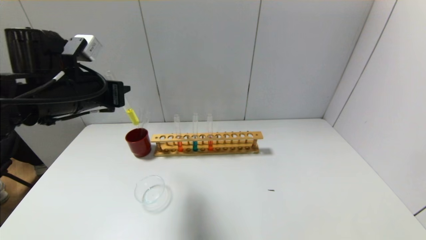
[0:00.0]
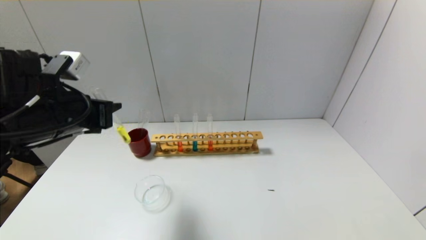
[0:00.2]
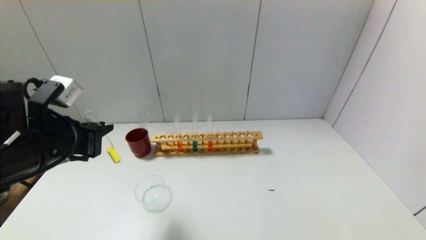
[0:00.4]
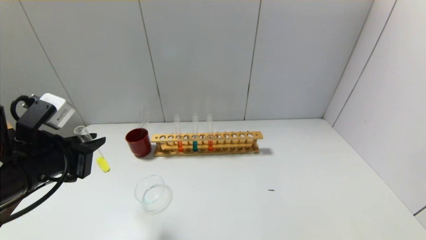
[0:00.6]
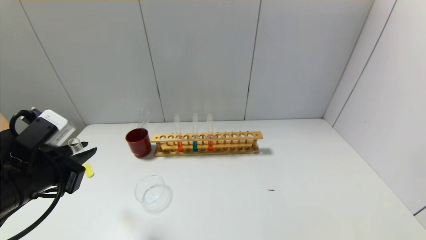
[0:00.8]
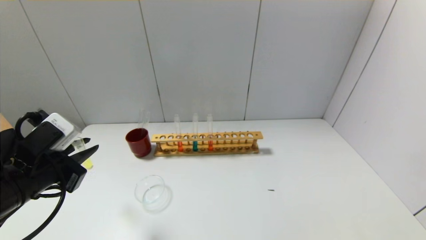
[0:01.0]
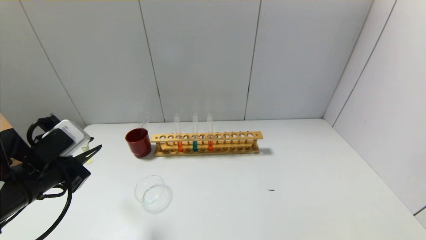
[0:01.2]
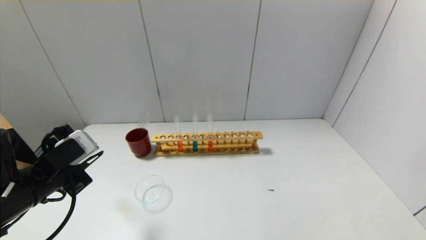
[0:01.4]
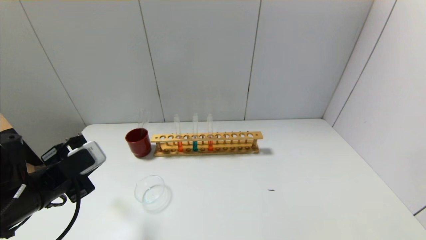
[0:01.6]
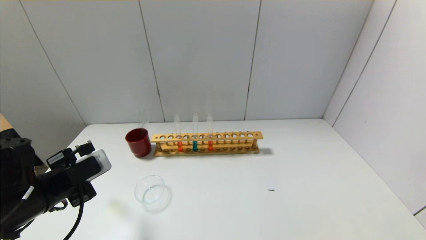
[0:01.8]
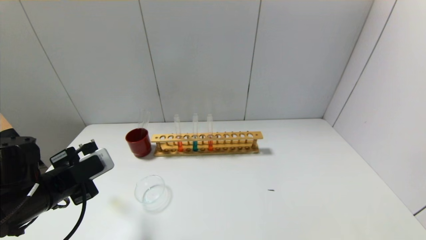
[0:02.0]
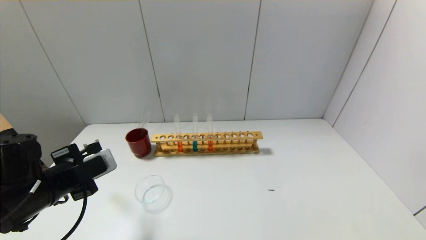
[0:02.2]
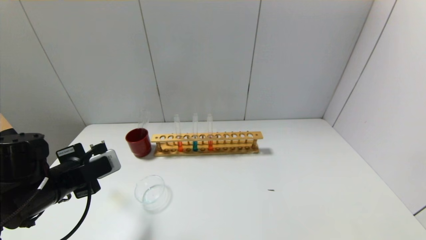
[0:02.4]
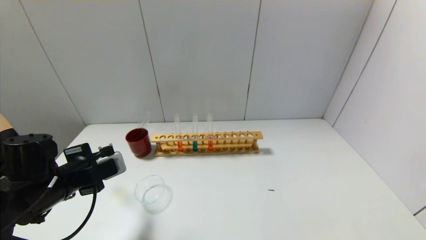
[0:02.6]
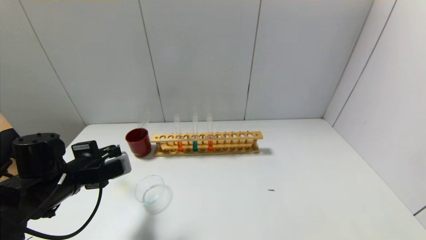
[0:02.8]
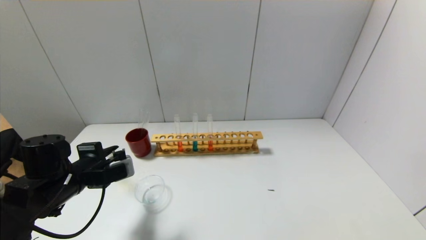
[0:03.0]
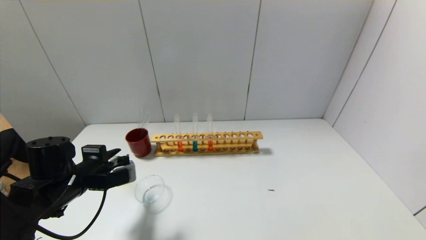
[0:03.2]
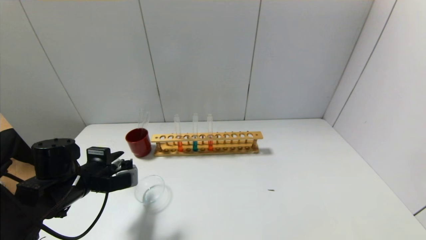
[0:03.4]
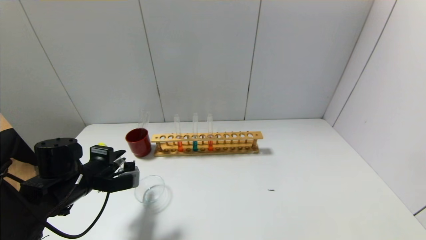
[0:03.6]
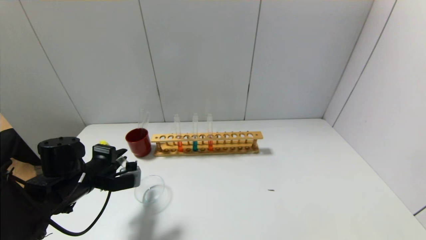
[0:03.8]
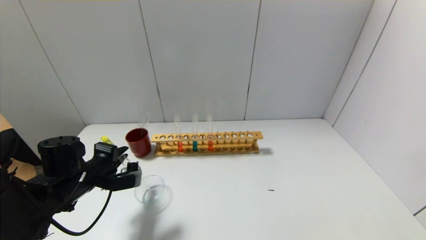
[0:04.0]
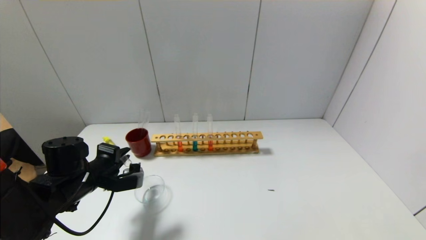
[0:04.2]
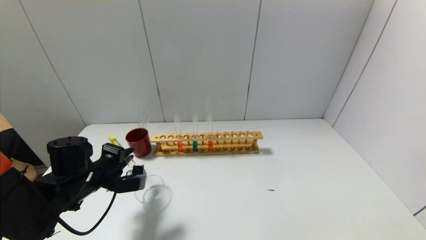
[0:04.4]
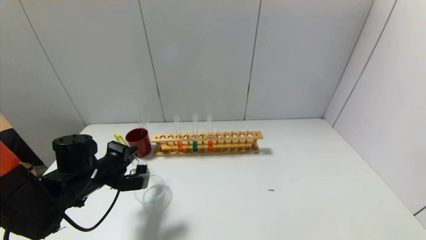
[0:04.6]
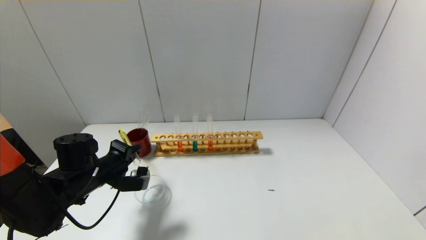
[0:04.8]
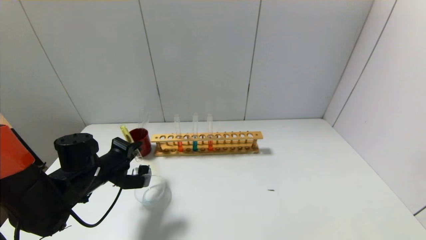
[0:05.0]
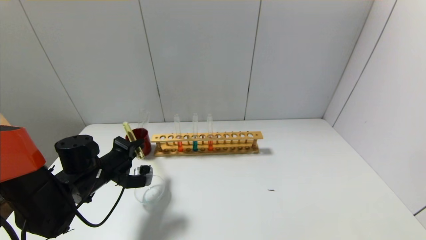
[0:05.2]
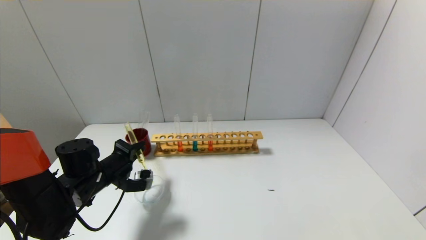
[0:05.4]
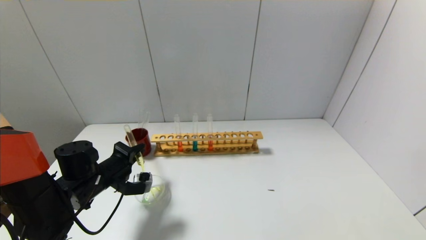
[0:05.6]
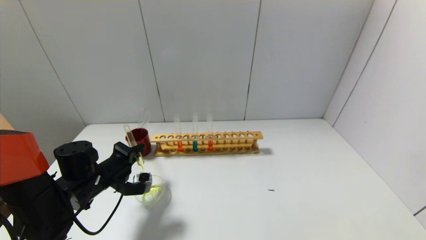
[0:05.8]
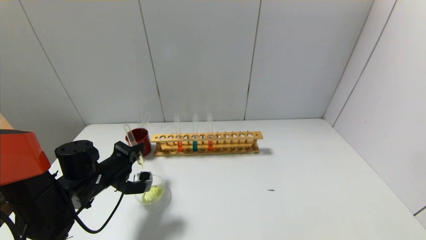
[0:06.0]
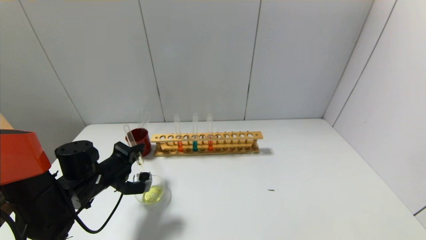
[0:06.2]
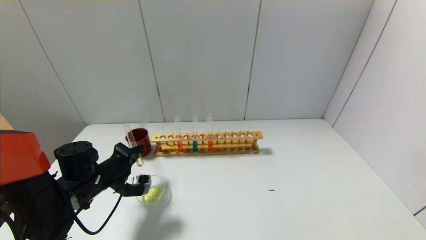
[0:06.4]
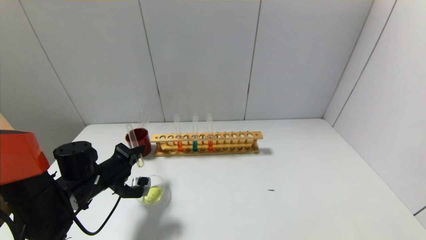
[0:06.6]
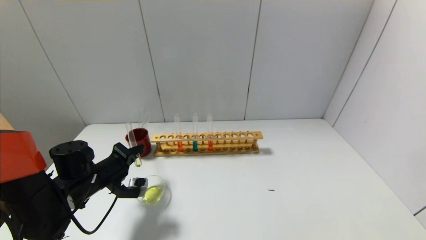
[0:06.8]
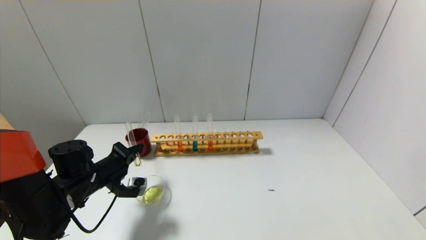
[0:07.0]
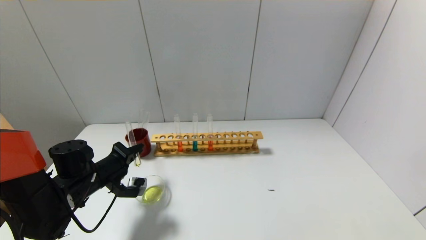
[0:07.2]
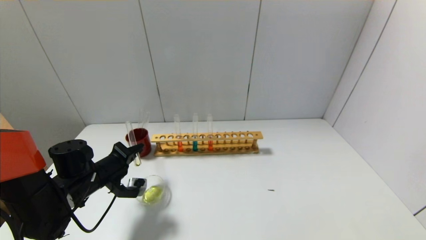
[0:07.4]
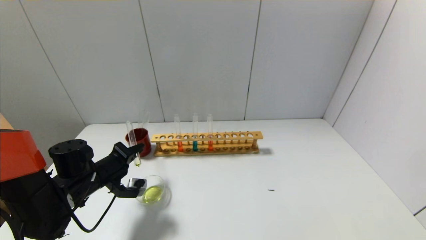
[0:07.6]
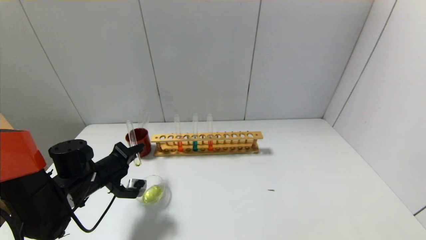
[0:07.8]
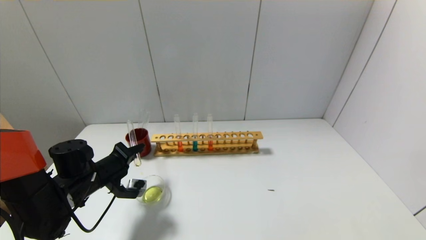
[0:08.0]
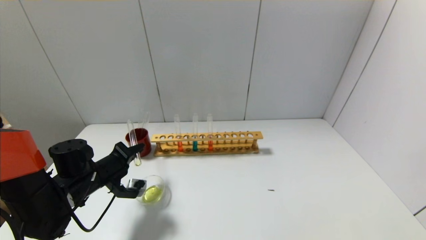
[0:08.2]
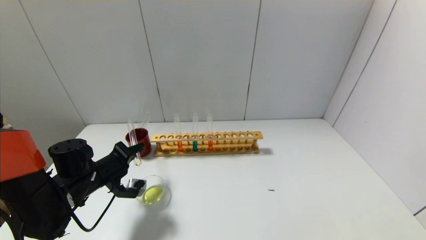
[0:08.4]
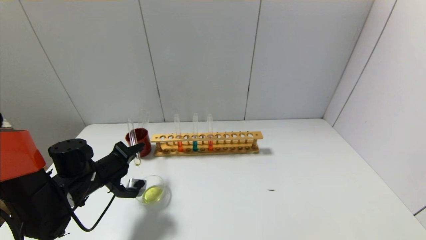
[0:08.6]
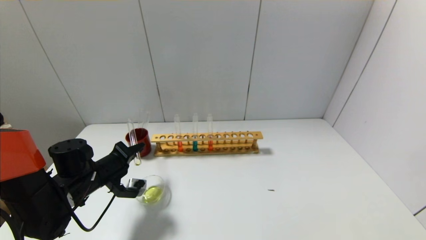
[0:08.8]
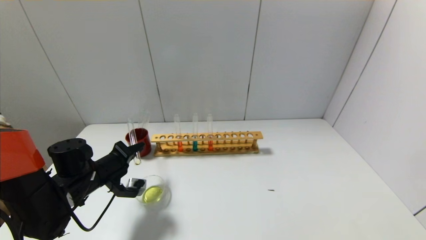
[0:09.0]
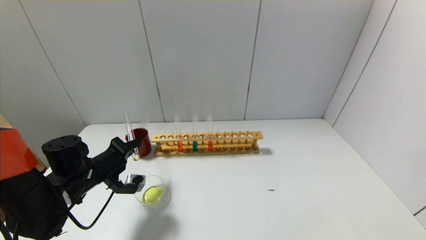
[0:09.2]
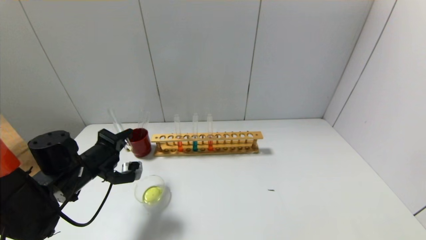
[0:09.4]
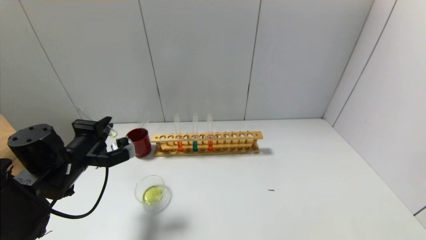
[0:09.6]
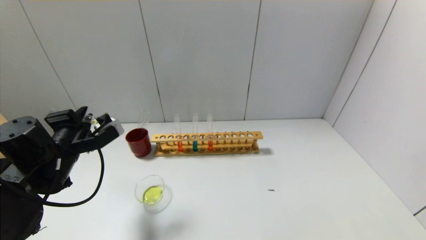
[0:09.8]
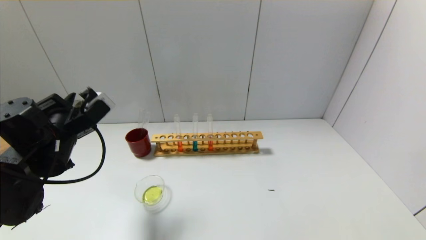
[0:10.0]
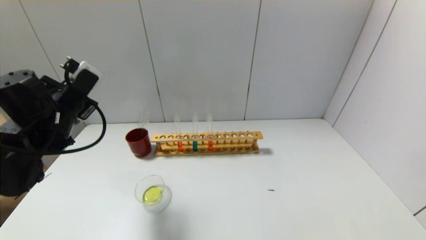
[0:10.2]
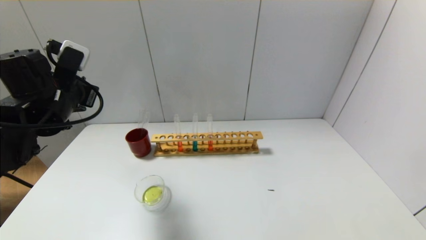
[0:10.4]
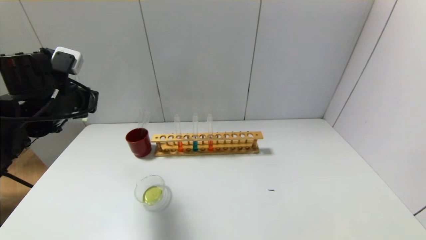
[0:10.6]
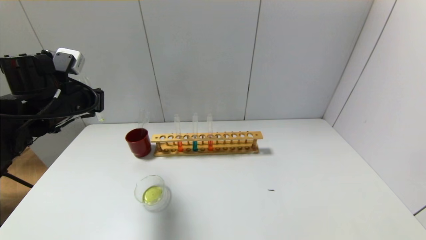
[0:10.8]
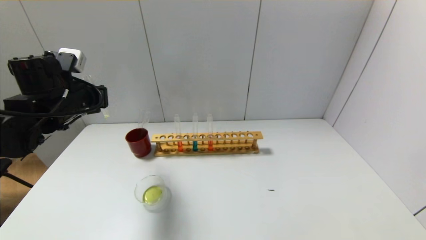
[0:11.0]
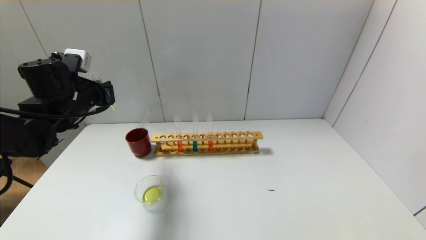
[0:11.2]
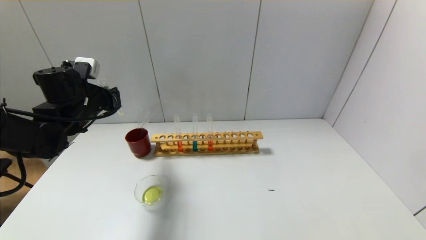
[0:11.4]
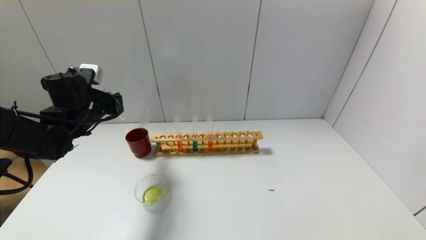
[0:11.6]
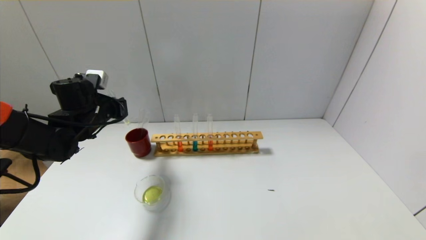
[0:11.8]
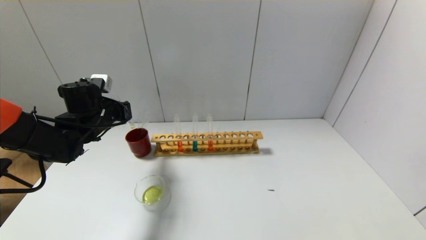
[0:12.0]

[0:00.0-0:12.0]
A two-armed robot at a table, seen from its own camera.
Step, 0:00.0 to 0:09.4: Pour the yellow reagent into the graduated cylinder with the left gripper.
0:00.0 to 0:01.6: The left gripper heads downward and backward, covering roughly 15 cm.
0:01.6 to 0:03.0: The left gripper is displaced forward by approximately 5 cm.
0:03.0 to 0:04.4: There are only small adjustments of the grippers.
0:04.4 to 0:06.0: The grippers make only small movements.
0:06.0 to 0:07.6: There are only small adjustments of the grippers.
0:07.6 to 0:09.0: Neither gripper changes place.
0:09.0 to 0:10.4: The left gripper heads upward, covering approximately 15 cm.
0:10.4 to 0:12.0: The left gripper goes roughly 10 cm downward and forward.

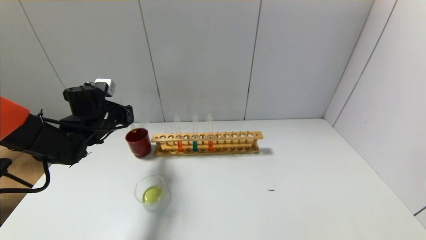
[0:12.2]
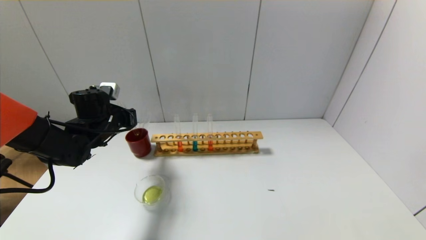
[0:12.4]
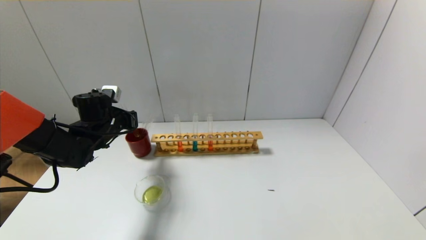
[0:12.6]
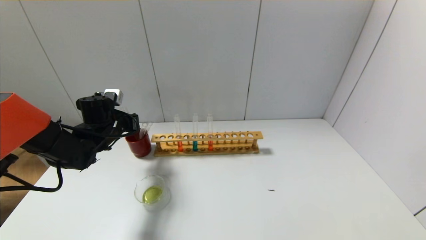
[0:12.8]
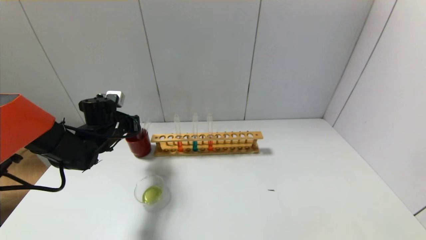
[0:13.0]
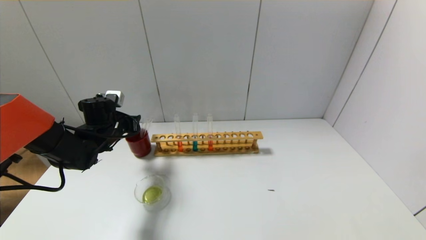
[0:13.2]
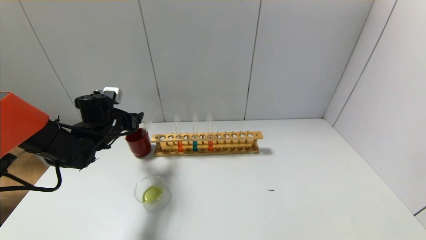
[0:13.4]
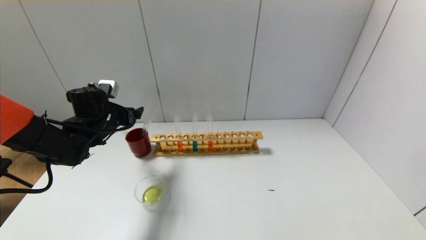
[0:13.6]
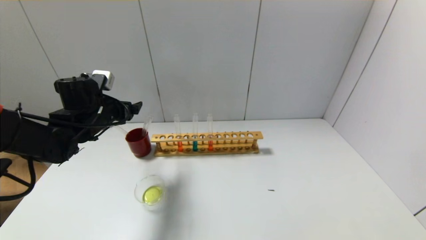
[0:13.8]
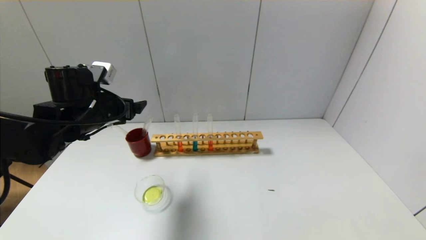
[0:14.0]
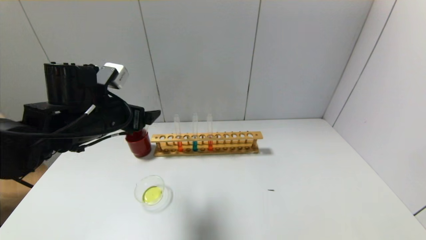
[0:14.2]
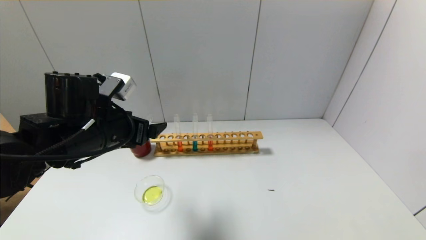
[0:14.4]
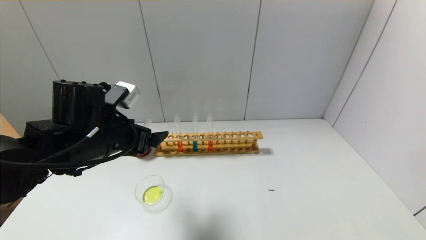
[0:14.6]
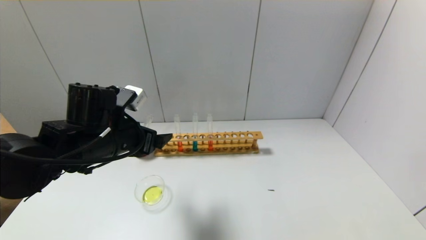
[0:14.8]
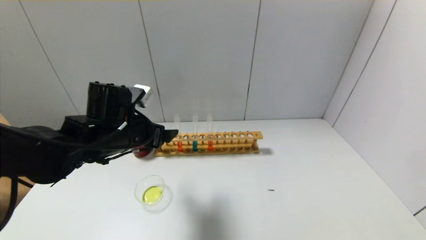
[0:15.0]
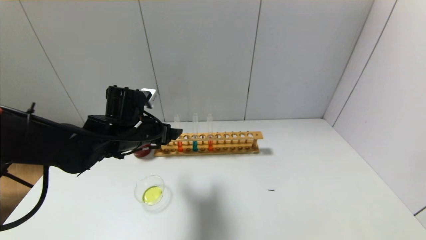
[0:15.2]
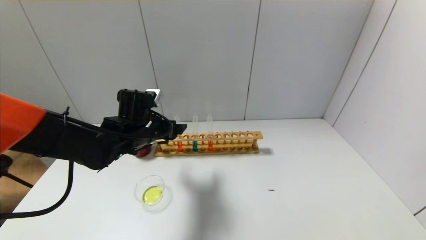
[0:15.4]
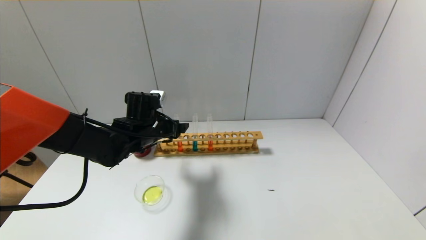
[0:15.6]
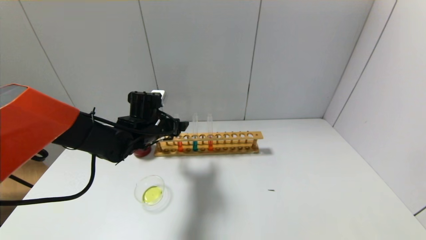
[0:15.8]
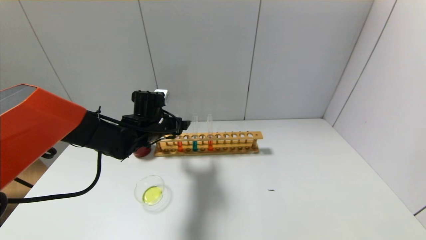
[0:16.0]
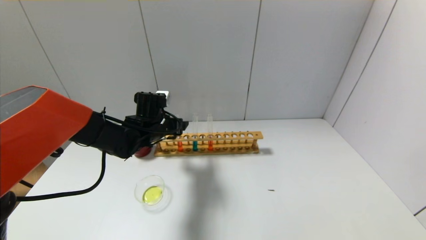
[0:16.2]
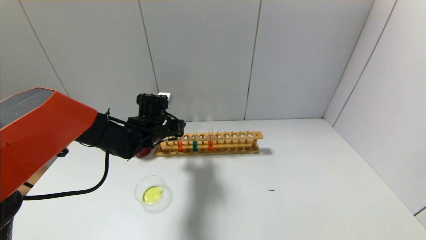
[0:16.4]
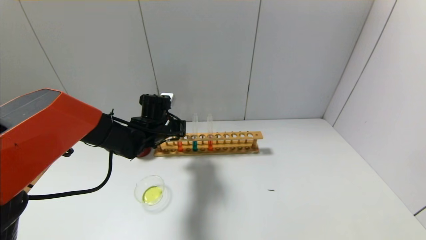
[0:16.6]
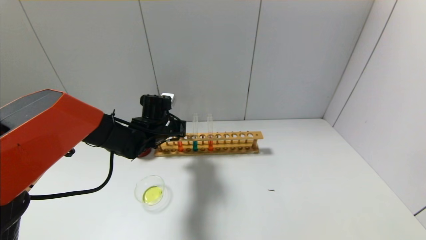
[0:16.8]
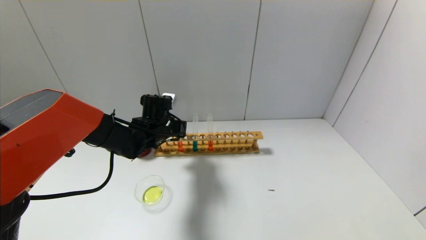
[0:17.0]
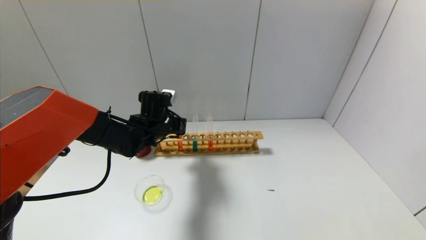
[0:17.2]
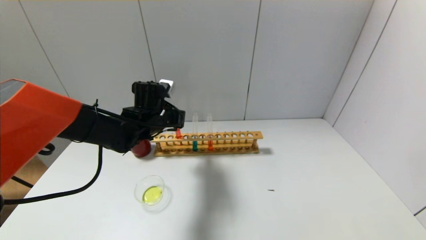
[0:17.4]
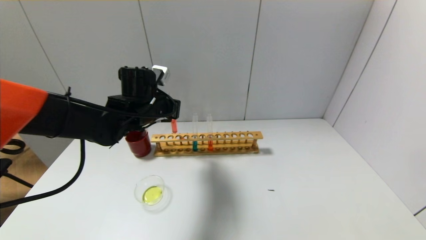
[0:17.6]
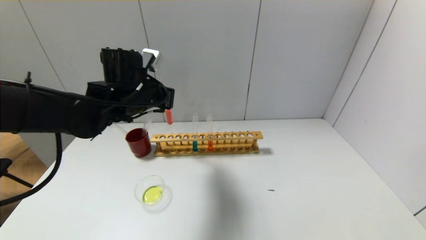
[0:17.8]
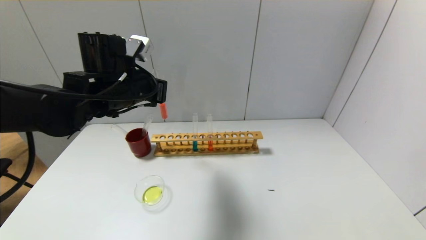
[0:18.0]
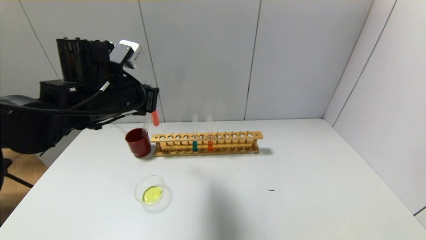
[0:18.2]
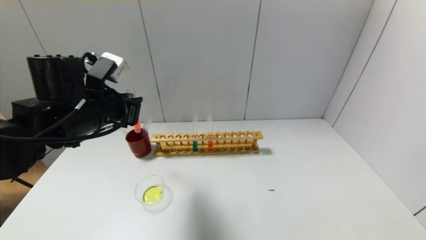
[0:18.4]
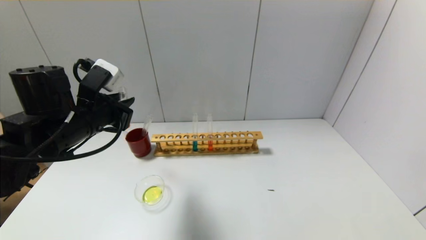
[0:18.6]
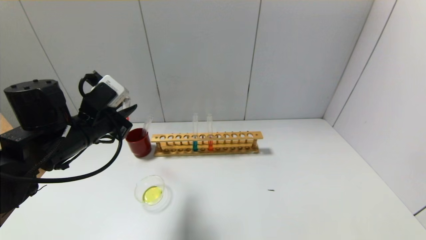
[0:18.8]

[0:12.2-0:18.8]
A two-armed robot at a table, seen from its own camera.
Step, 0:13.4 to 0:16.6: Grasp the red reagent with the left gripper.
0:12.2 to 0:13.8: The left gripper opens.
0:13.8 to 0:15.4: The left gripper is displaced to the right by roughly 10 cm, and travels backward and back again, some 10 cm each way.
0:15.4 to 0:17.2: The left gripper shifts some 5 cm forward, and closes up.
0:17.2 to 0:18.8: The left gripper moves backward, to the left and upward, about 20 cm.
